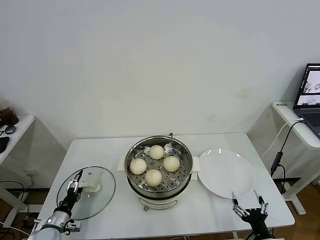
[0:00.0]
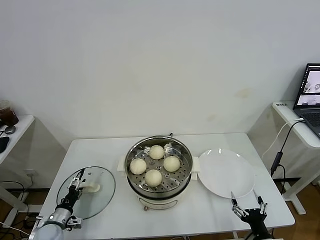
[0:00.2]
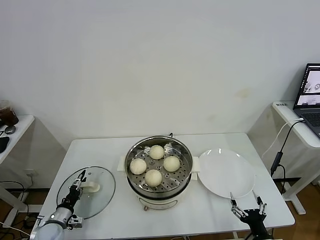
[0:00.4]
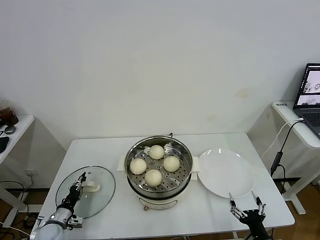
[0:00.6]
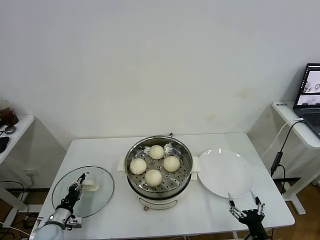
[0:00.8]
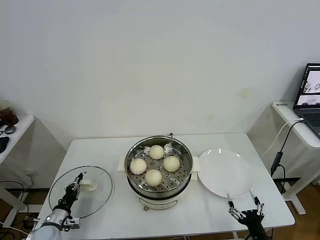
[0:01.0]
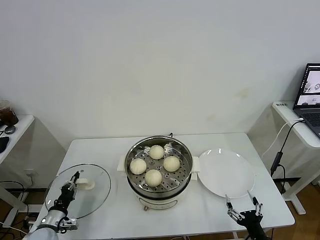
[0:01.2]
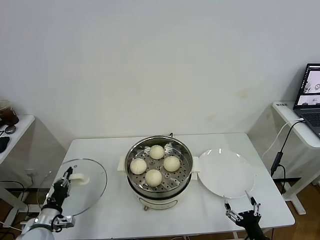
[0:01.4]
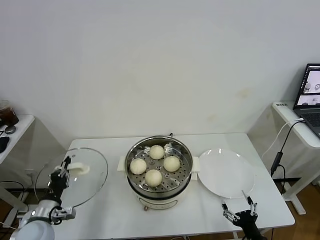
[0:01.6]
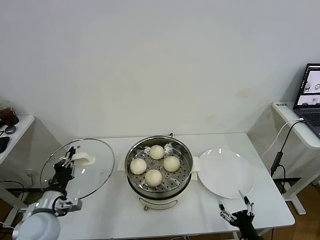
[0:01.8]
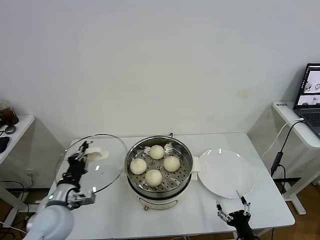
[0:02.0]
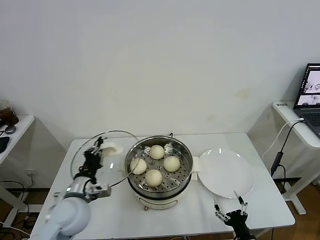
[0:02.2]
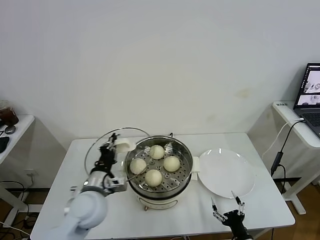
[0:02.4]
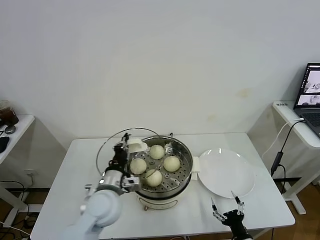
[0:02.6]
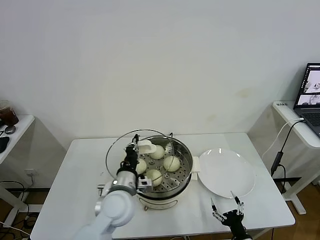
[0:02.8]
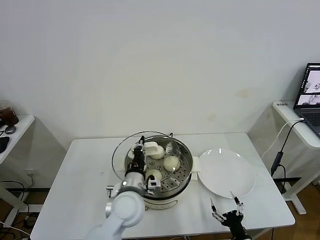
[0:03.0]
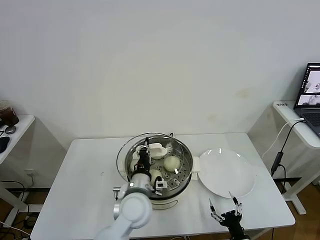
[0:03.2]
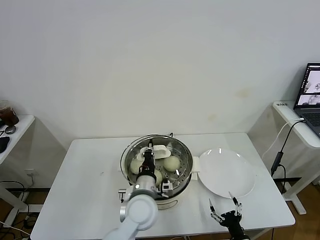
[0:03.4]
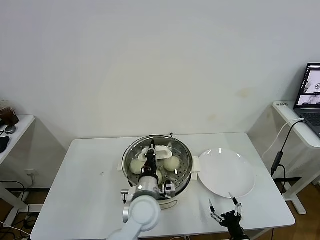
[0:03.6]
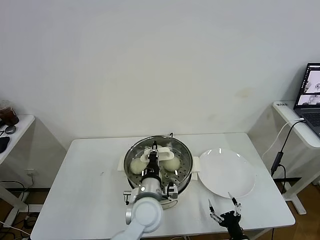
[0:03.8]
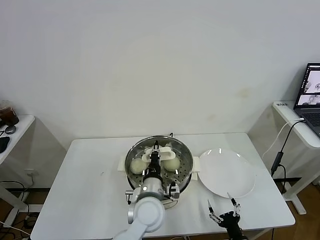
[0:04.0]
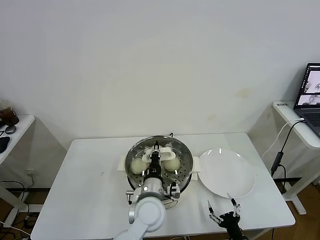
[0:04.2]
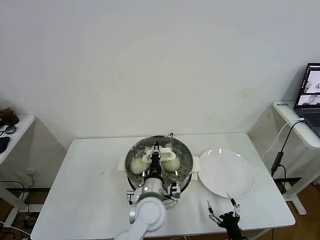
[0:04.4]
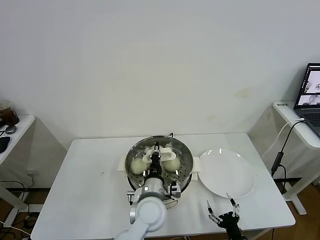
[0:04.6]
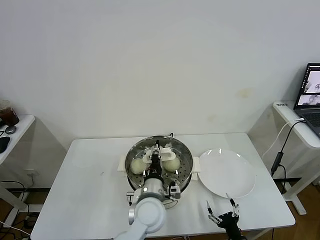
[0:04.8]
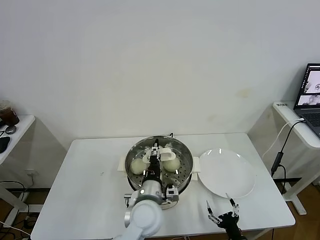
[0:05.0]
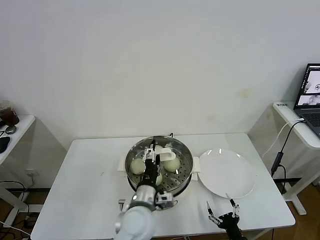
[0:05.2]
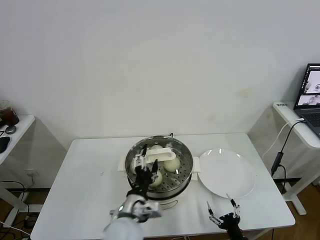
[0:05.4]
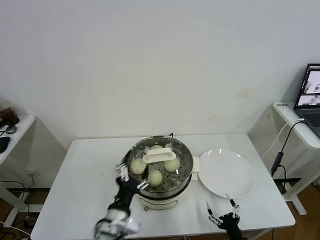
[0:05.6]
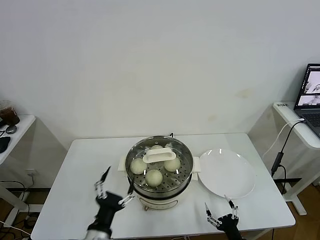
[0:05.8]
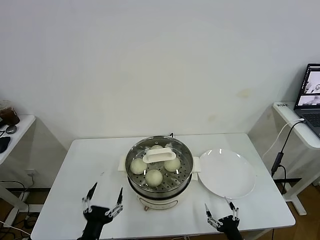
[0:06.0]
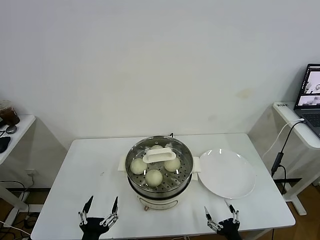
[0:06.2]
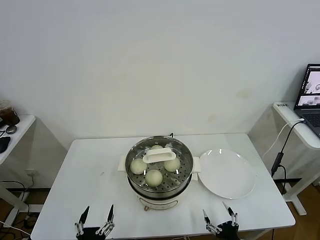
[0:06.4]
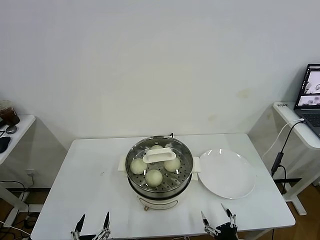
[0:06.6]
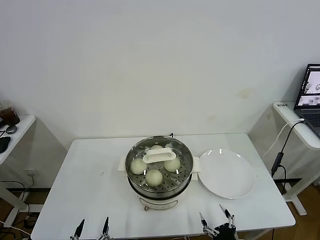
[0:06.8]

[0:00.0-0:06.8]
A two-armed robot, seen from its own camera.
Task of the whole recording: take steamed baozi put them in steamer.
Step, 1.0 to 5.0 s: Place the pot lid on the steamer with left gripper.
0.0 to 1.4 s: The left gripper heads upward, covering approximately 5 cm, and closes up.
1.4 to 2.8 s: The right gripper heads downward, covering about 5 cm. The left gripper moves to the right and upward, some 30 cm.
2.8 to 4.0 s: The left gripper heads to the right, covering approximately 10 cm.
4.0 to 5.4 s: The left gripper shifts approximately 5 cm backward and to the left, and opens its fingers.
5.4 to 6.8 s: The right gripper ends up about 5 cm from where it was, while the left gripper travels backward, to the left and downward by about 25 cm.

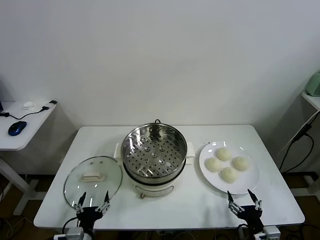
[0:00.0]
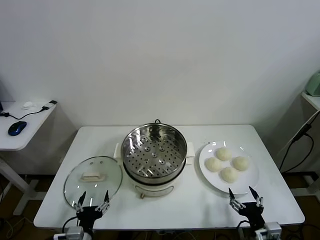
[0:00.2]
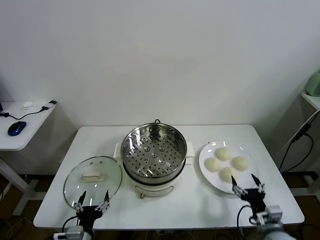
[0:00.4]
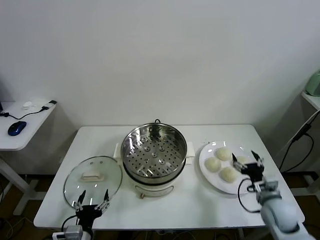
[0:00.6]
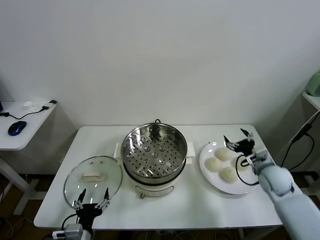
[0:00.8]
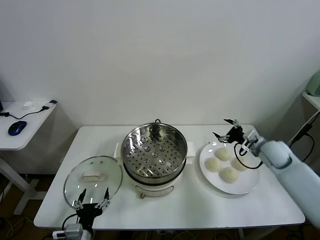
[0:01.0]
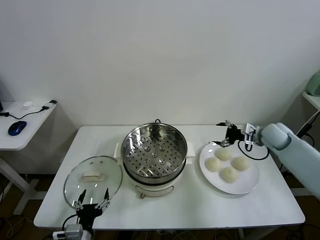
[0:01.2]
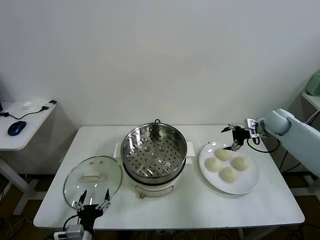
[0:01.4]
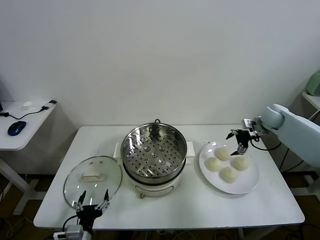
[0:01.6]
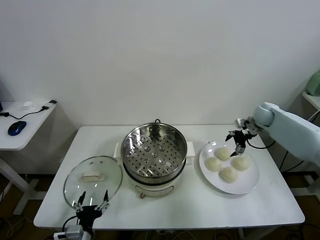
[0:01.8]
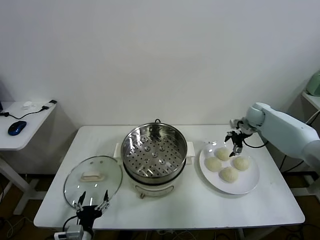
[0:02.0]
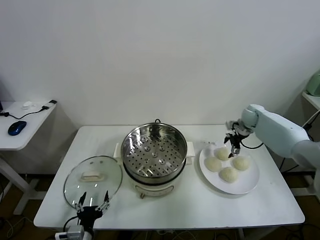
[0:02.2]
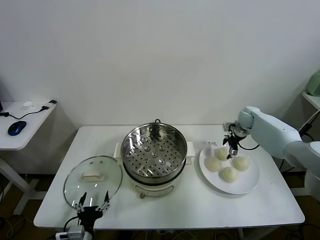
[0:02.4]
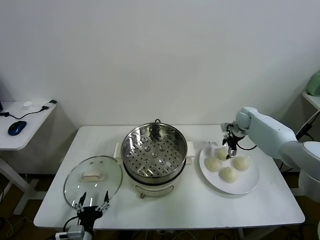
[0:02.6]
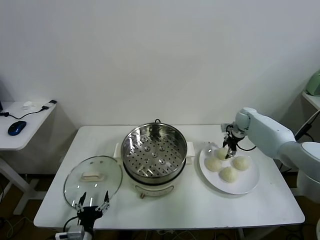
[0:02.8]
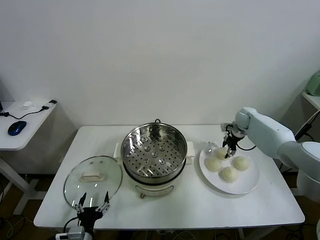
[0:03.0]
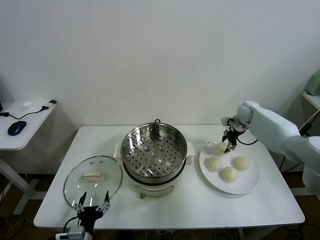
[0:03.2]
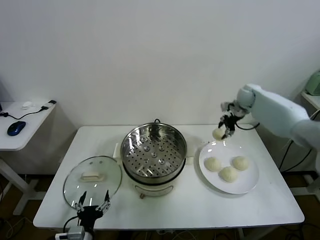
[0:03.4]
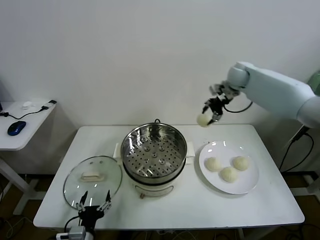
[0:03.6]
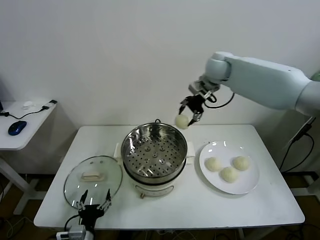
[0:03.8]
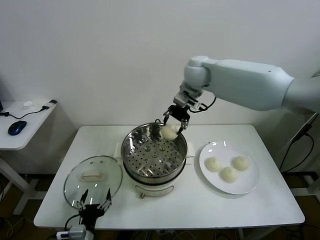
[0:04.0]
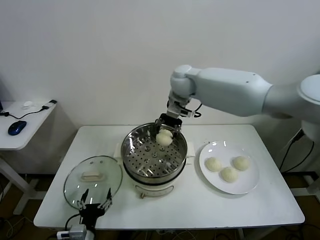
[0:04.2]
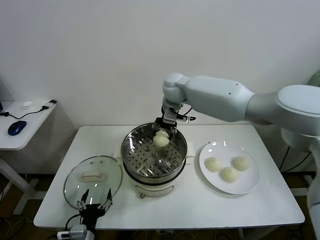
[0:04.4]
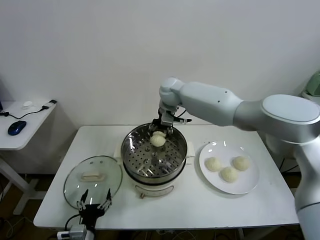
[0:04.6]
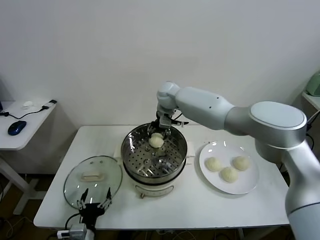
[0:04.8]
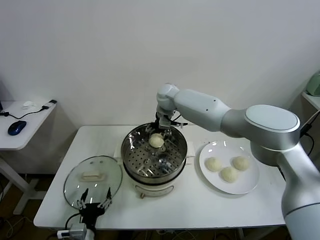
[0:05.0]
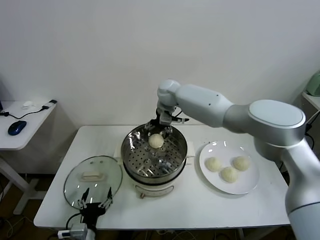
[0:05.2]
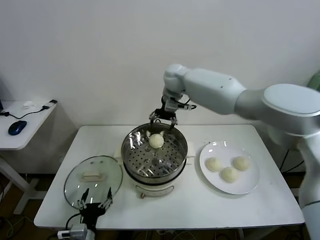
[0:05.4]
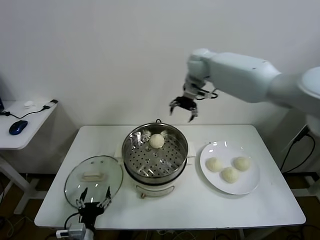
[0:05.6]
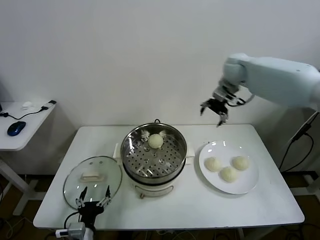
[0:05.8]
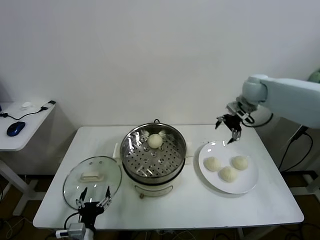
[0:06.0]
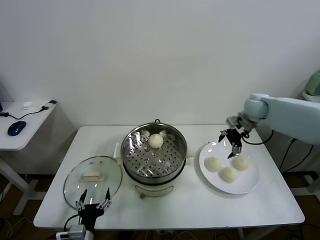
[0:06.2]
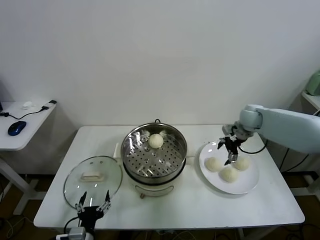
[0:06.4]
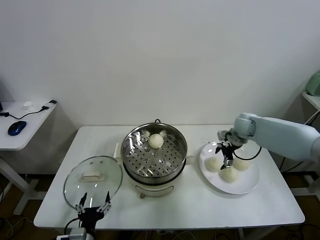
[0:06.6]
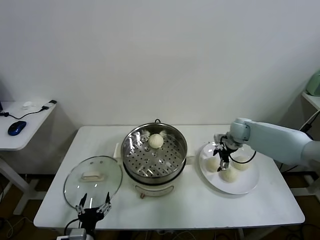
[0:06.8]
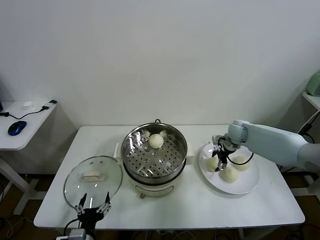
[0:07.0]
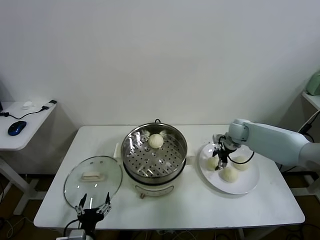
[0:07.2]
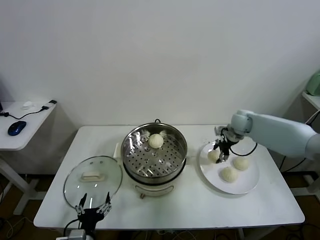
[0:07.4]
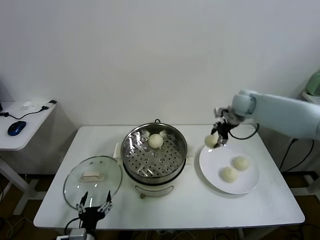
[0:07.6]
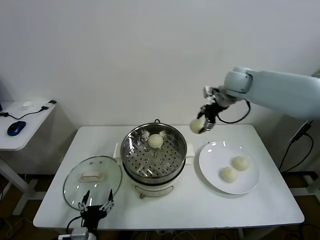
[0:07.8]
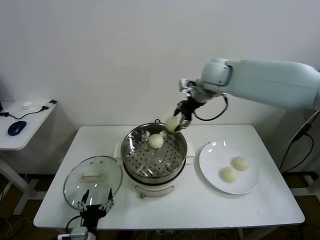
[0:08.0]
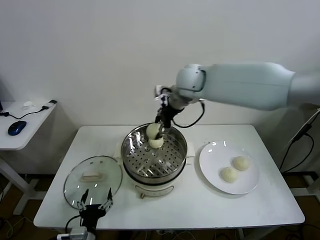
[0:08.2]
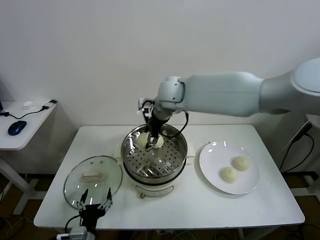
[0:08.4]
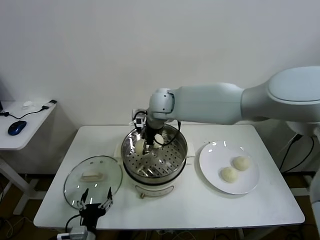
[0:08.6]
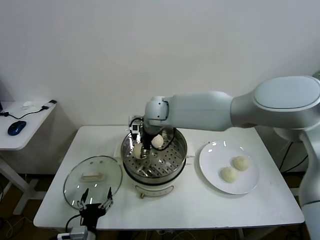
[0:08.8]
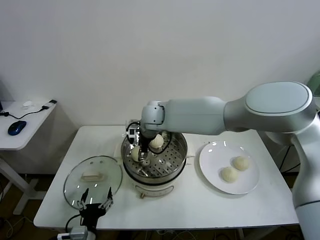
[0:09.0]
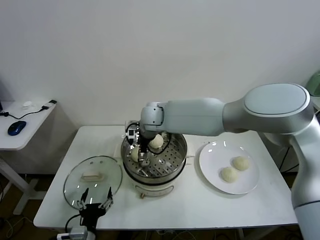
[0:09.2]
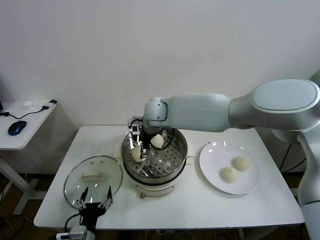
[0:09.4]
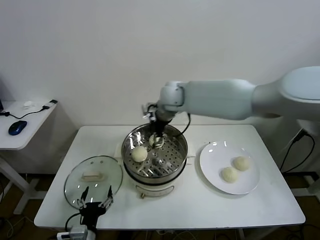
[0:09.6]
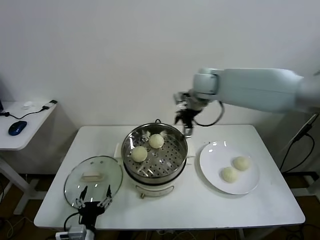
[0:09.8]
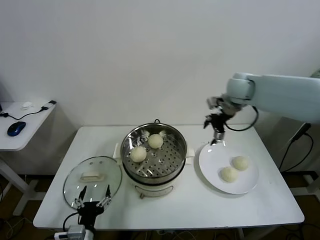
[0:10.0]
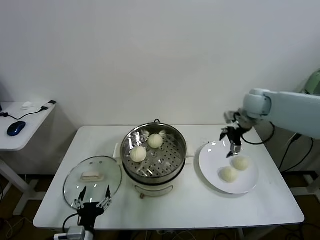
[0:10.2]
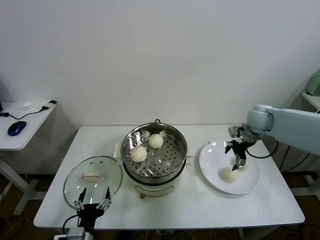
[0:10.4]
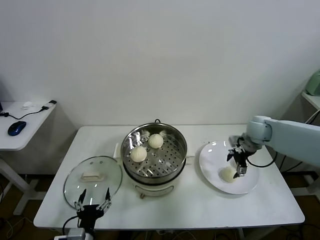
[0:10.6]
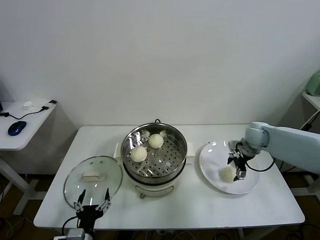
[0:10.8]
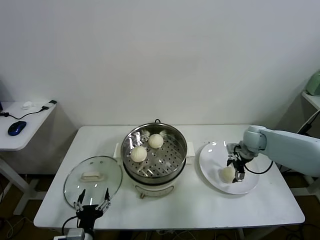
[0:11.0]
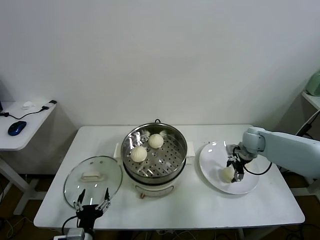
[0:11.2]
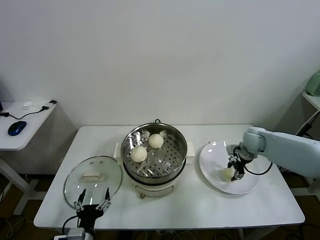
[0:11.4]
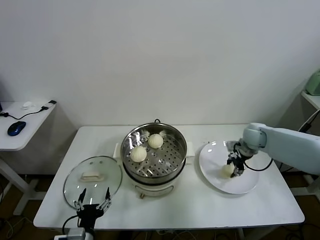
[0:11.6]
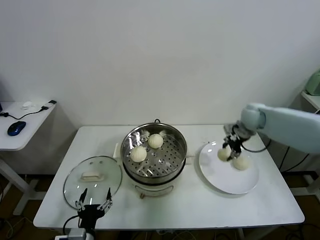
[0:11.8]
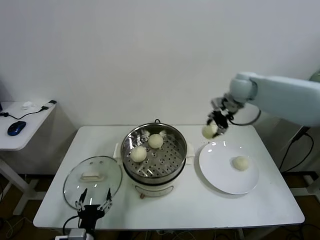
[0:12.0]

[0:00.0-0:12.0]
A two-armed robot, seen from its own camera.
Task of the whole recording: take steamed baozi put them in steamer.
Step, 0.0 to 2.8 s: Grasp the baozi in the plate with right gripper.
Step, 3.2 to 5.2 s: Place the baozi on the steamer with right gripper.
Step, 5.4 to 7.2 s: Grasp the baozi in the plate with right gripper.
Step, 7.4 to 9.4 s: Place the baozi on the steamer with right gripper.
Step, 9.6 to 11.4 s: Grasp the baozi in the plate with right gripper.
1.6 to 3.0 s: The right gripper shifts about 5 cm to the left and forward, and closes.
3.0 to 4.4 s: The right gripper goes approximately 35 cm to the left and upward.
4.4 to 6.0 s: The right gripper is displaced to the right by some 30 cm, and opens its fingers.
6.0 to 7.6 s: The right gripper travels downward and back again, about 15 cm each way, and closes up.
7.6 to 9.0 s: The right gripper moves to the left, about 30 cm.
9.0 to 10.4 s: The right gripper moves to the right, some 40 cm, and opens its fingers.
10.4 to 12.0 s: The right gripper is displaced upward and to the left by about 15 cm, and closes.

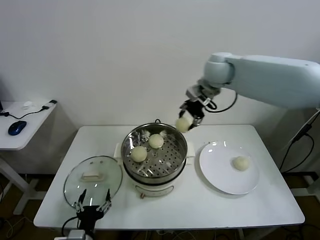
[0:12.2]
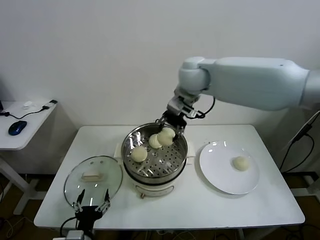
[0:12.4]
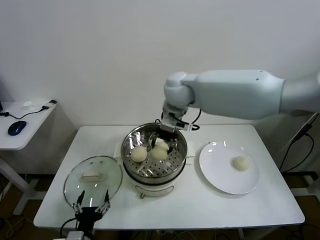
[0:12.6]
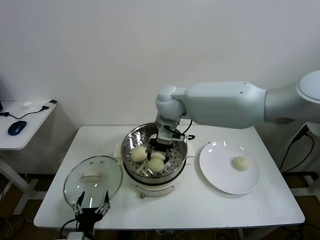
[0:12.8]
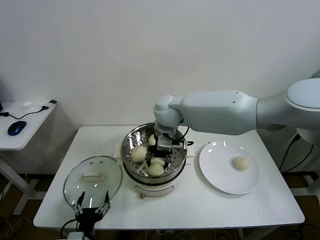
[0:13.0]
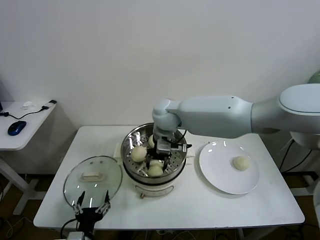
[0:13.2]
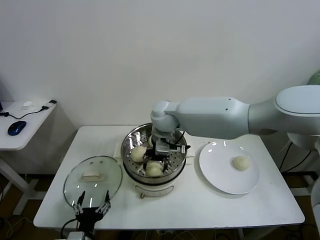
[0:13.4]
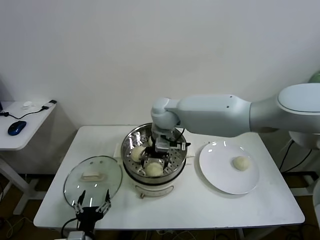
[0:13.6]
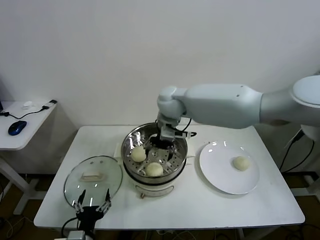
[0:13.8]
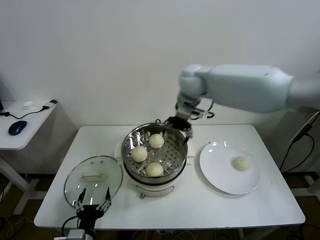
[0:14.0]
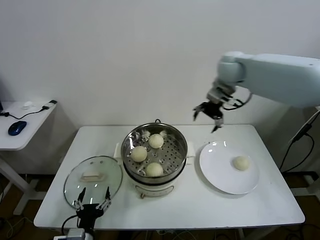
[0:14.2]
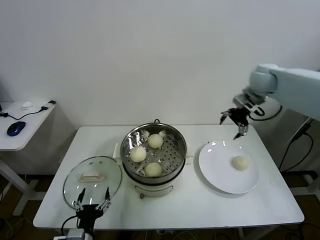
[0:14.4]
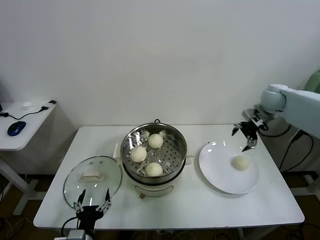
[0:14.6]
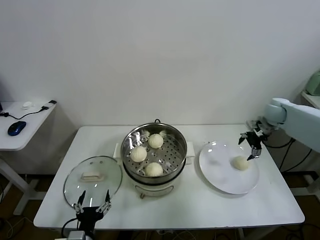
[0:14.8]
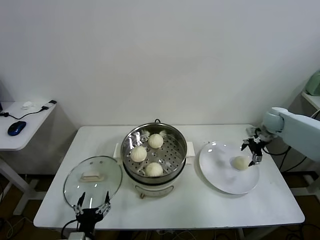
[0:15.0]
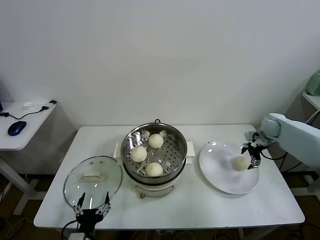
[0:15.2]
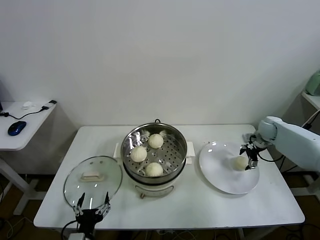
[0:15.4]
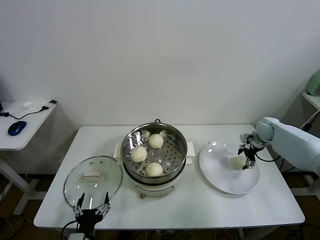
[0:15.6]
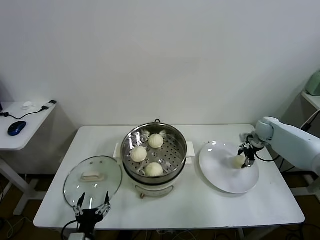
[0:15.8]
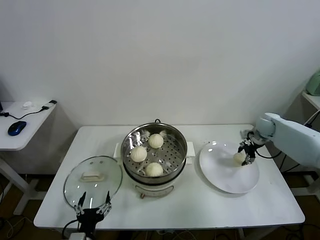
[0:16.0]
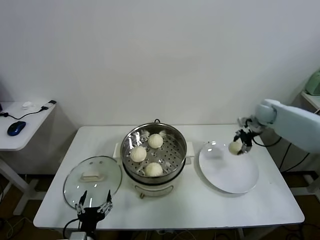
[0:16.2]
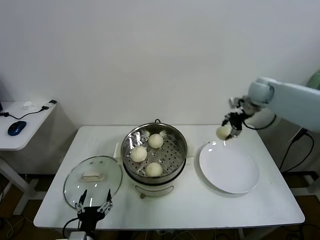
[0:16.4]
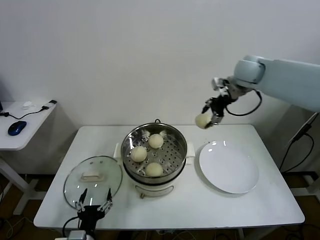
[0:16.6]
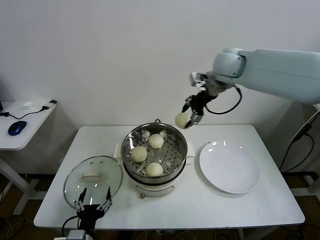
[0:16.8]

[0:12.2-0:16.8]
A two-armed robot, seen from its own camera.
Task of the whole recording: take steamed baozi put them in steamer.
Step, 12.2 to 13.6 s: Place the baozi on the steamer with right gripper.
Step, 13.8 to 15.8 s: Grasp the baozi in the plate with right gripper.
12.2 to 13.8 s: The right gripper moves to the left and downward, roughly 15 cm, and opens up.
13.8 to 15.2 s: The right gripper moves to the right and downward, approximately 40 cm.
15.2 to 16.8 s: The right gripper heads upward and to the left, covering about 35 cm, and closes up.
